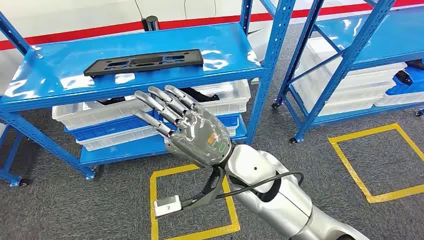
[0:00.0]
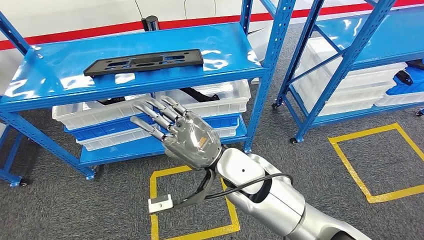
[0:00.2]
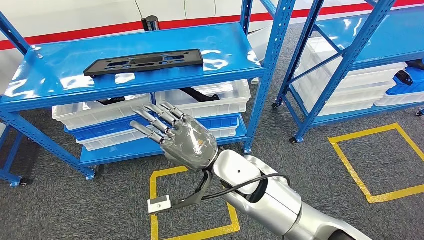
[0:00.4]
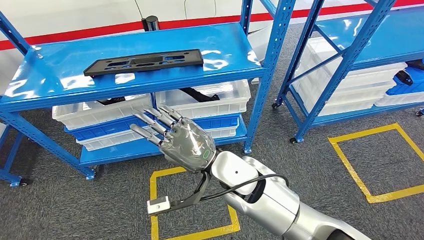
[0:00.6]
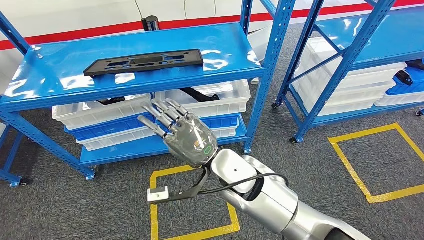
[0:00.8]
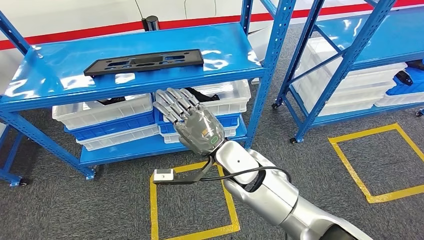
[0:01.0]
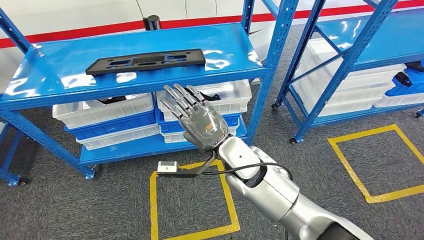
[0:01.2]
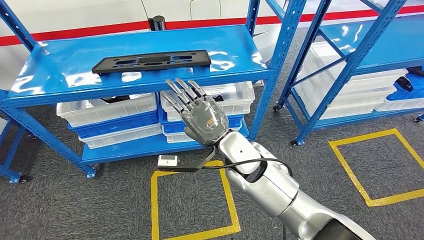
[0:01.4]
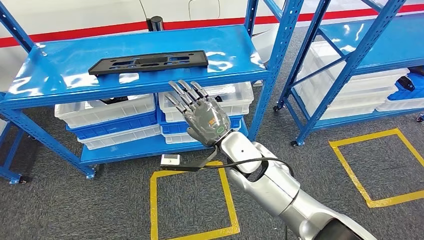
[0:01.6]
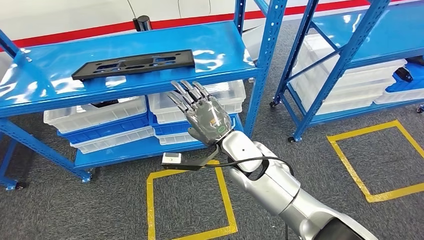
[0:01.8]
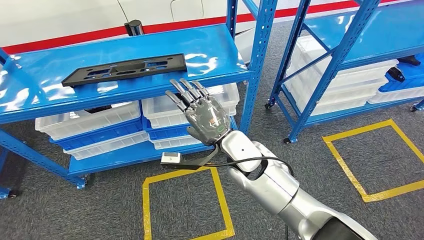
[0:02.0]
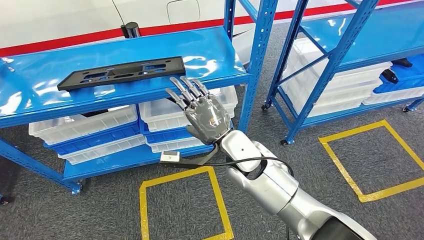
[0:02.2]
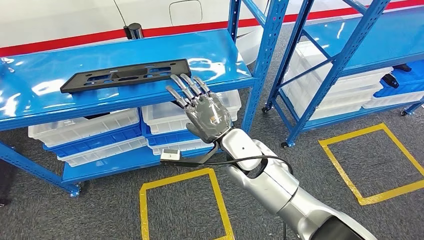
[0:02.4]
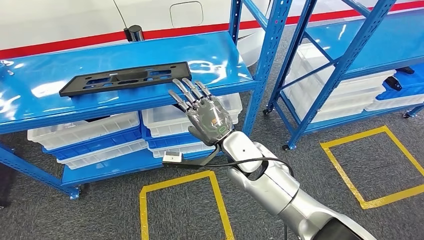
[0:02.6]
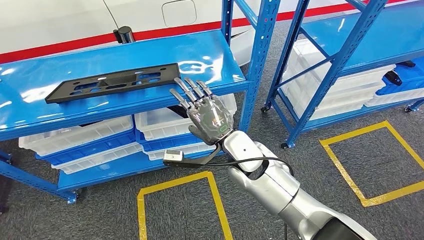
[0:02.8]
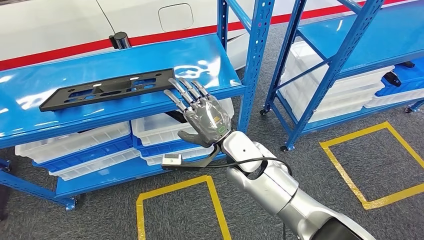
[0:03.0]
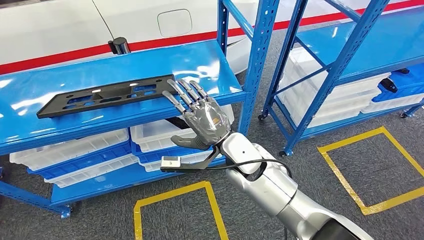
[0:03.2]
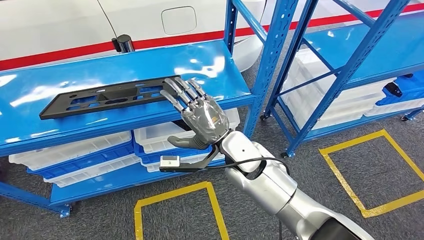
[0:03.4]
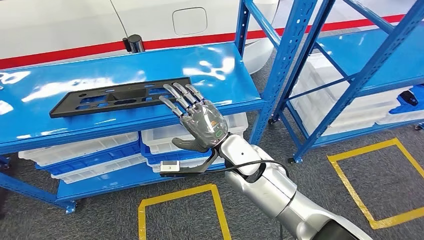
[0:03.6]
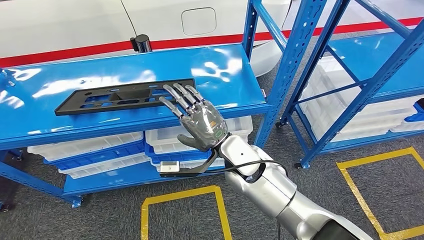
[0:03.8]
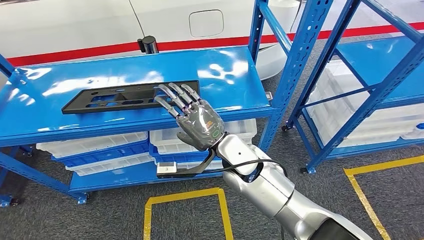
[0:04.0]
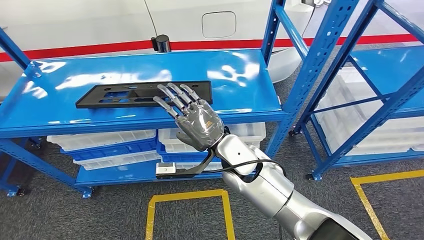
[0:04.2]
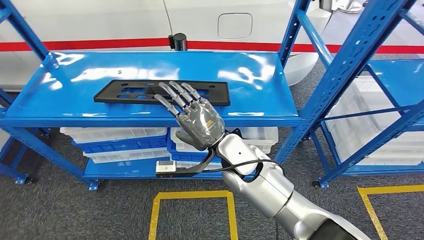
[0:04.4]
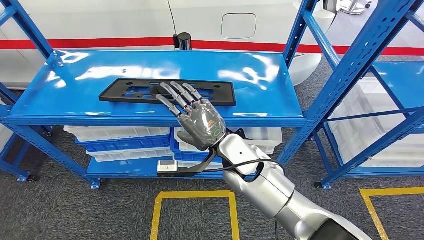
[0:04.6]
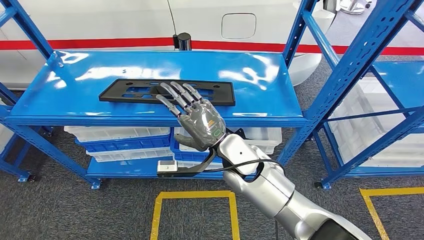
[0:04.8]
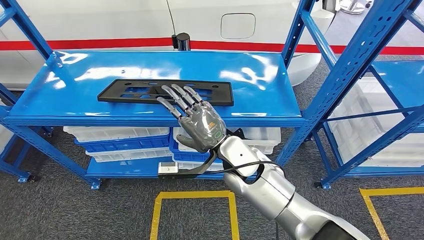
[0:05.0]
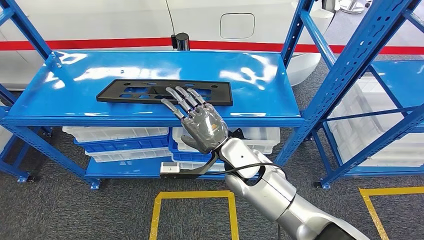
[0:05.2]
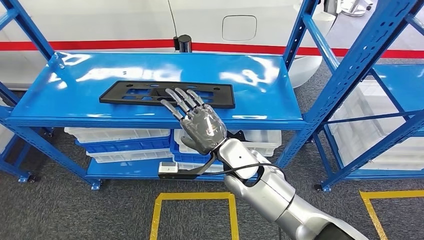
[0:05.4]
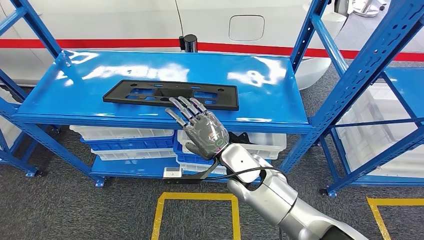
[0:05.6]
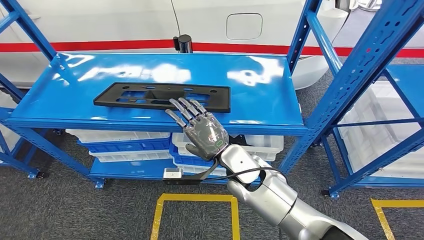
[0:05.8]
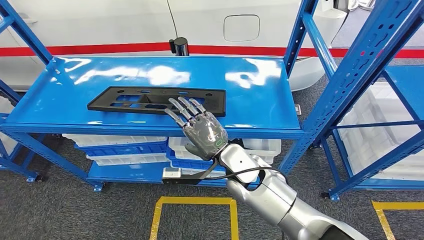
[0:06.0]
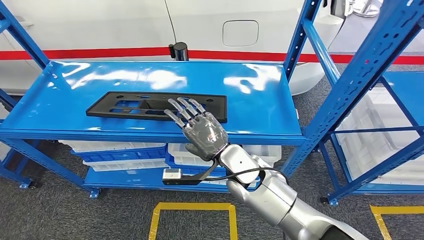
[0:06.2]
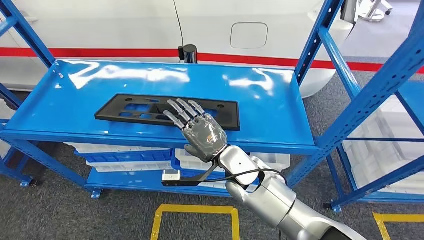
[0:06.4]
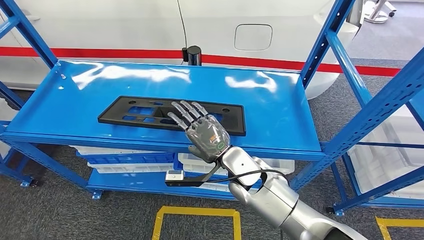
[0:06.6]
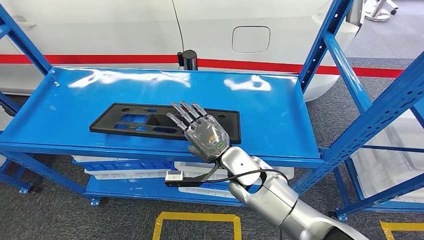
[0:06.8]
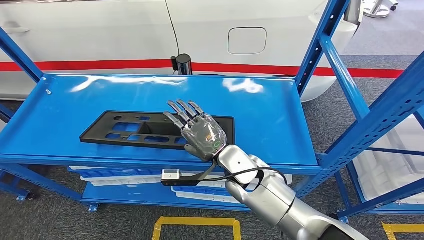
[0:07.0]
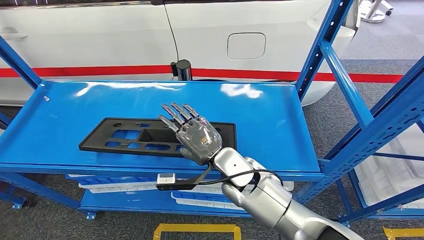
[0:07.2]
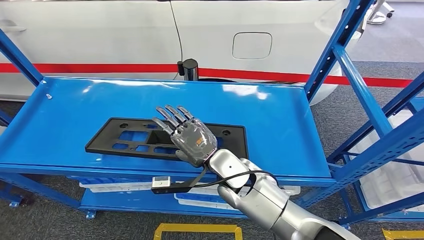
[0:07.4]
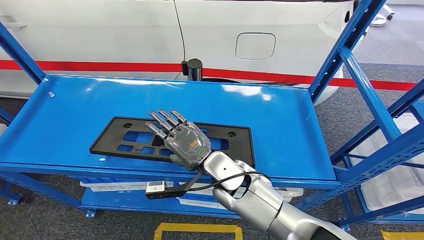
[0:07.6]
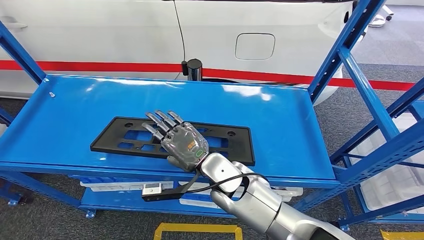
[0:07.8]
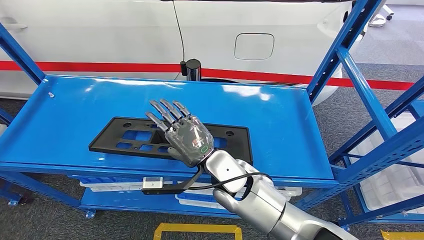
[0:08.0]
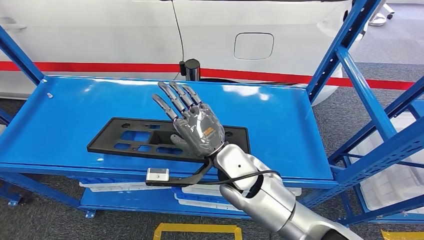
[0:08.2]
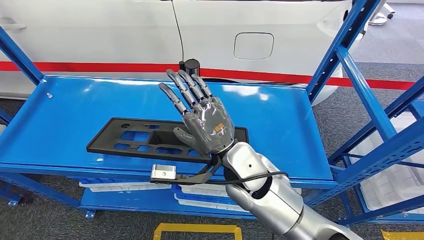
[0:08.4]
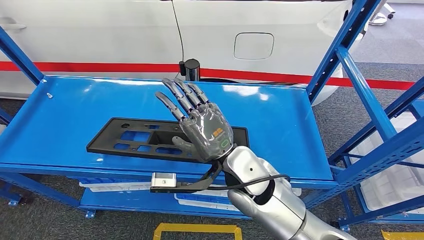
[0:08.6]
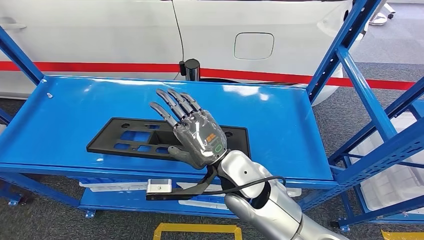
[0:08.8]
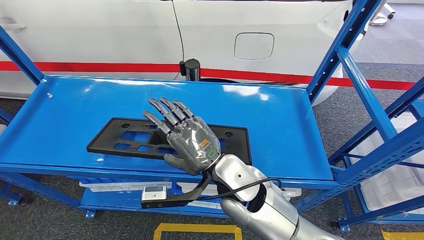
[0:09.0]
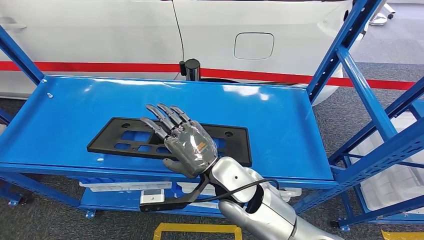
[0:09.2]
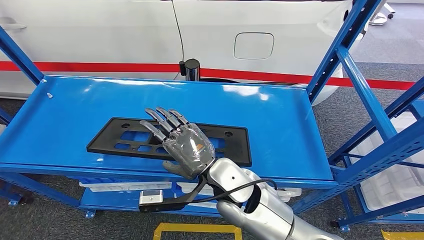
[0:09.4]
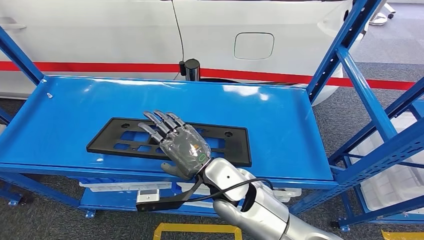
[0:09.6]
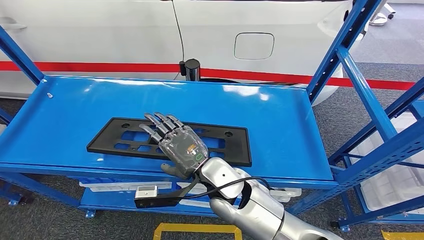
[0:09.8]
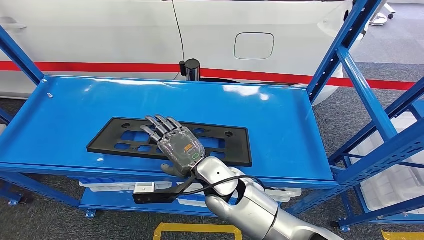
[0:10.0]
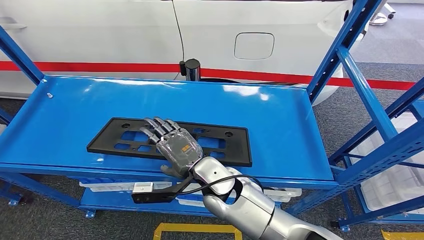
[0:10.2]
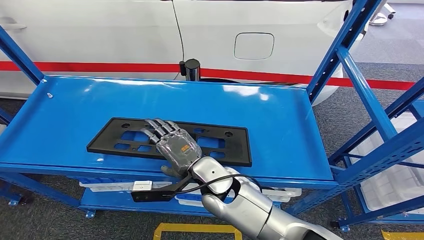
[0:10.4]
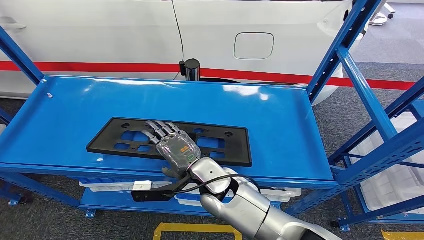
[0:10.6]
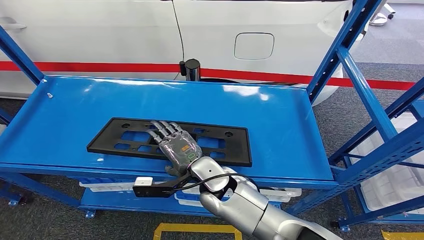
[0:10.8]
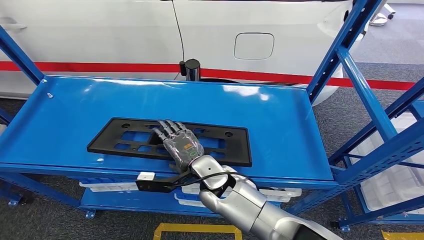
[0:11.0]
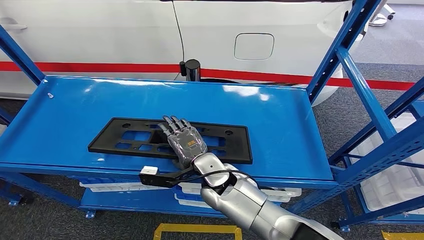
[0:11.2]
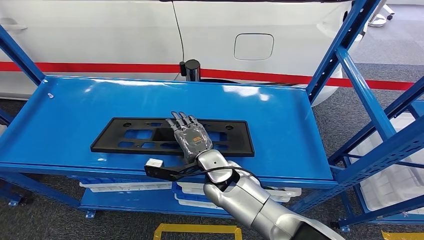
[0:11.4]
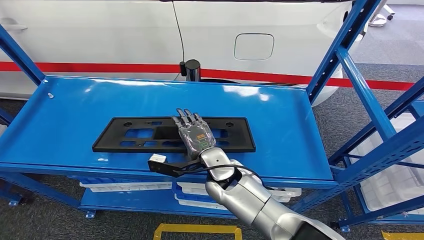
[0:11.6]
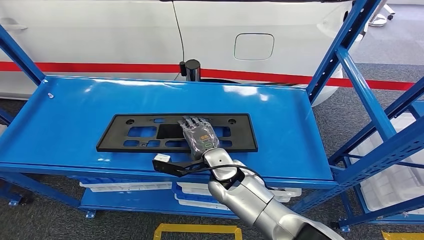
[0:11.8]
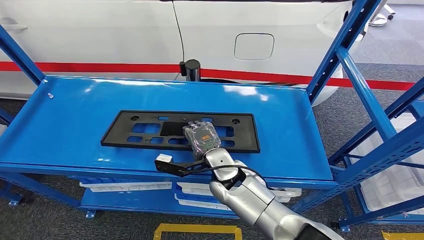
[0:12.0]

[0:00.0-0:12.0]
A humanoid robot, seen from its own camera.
0:07.6 to 0:09.0: The right hand travels upward by about 5 cm.
0:09.0 to 0:10.4: The right hand travels downward by some 5 cm.

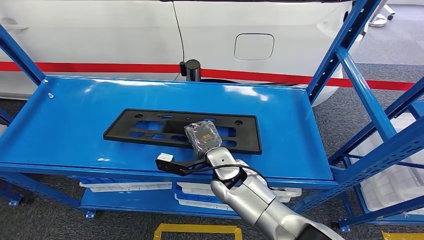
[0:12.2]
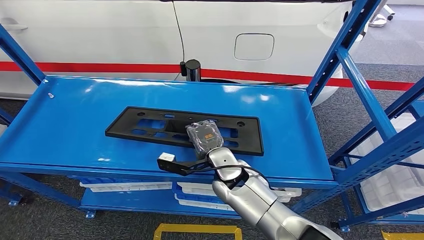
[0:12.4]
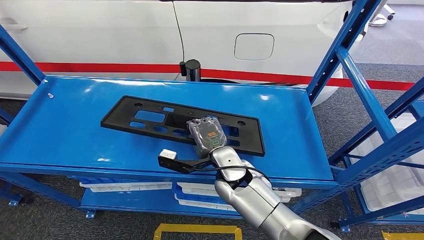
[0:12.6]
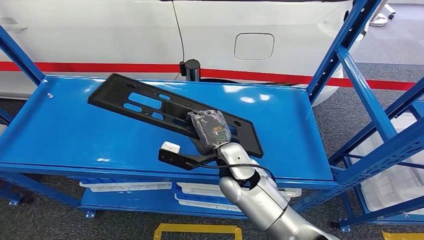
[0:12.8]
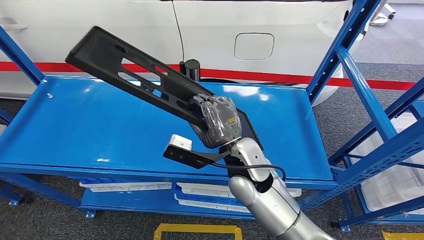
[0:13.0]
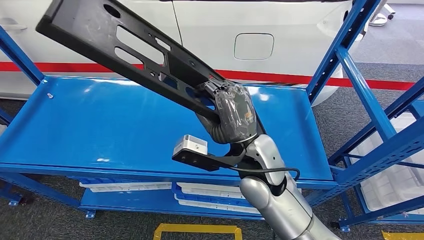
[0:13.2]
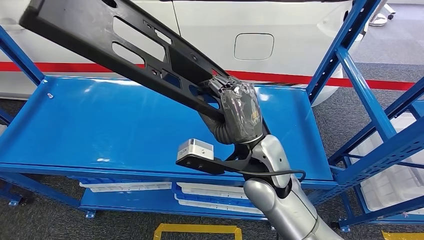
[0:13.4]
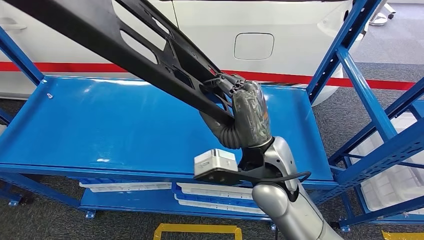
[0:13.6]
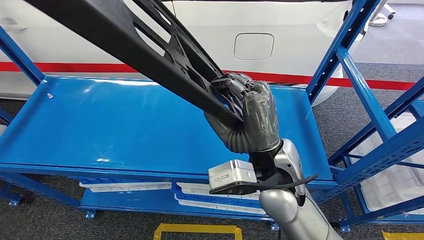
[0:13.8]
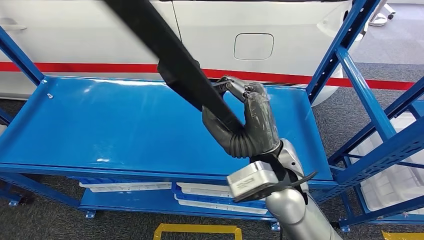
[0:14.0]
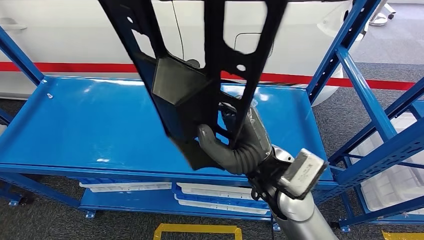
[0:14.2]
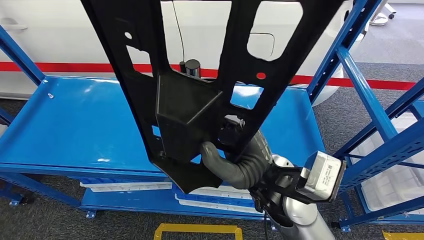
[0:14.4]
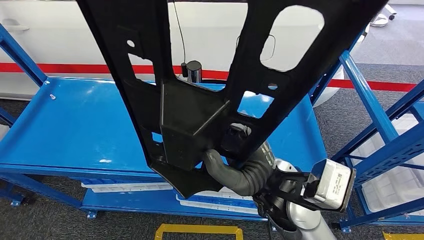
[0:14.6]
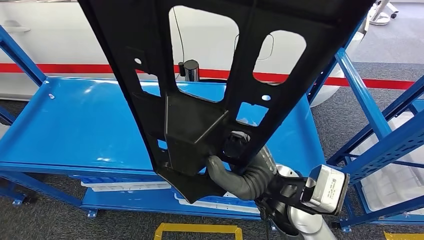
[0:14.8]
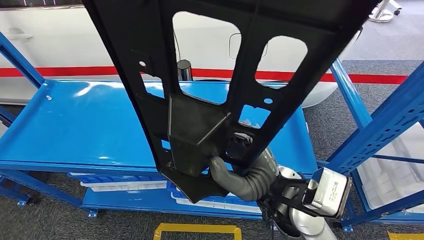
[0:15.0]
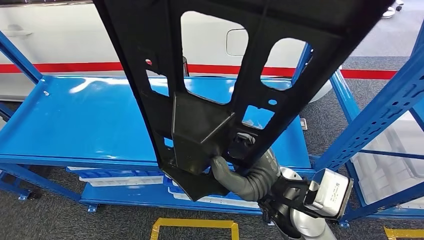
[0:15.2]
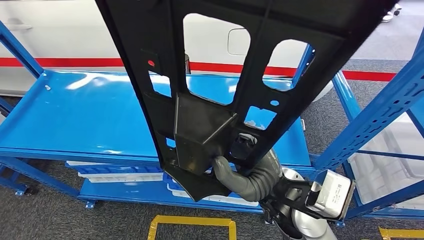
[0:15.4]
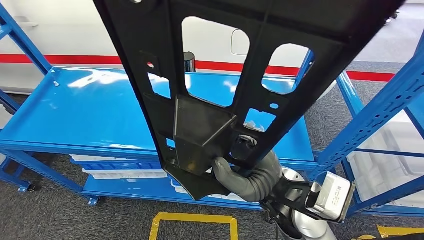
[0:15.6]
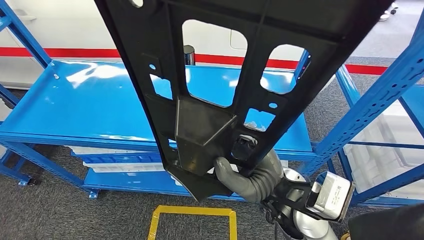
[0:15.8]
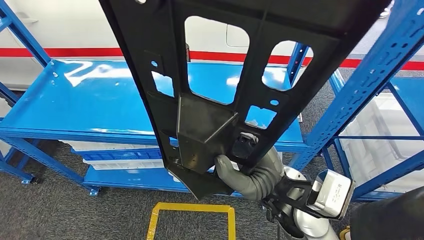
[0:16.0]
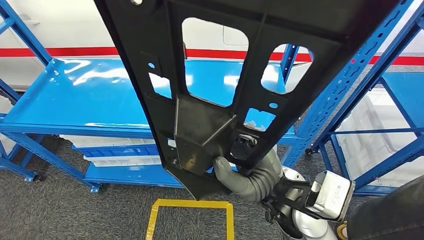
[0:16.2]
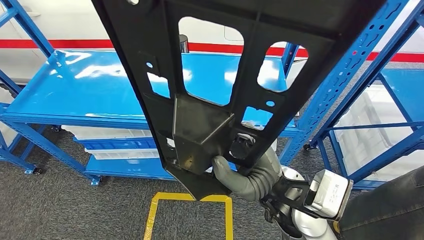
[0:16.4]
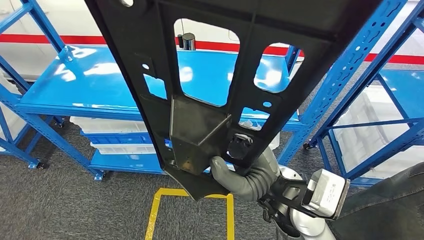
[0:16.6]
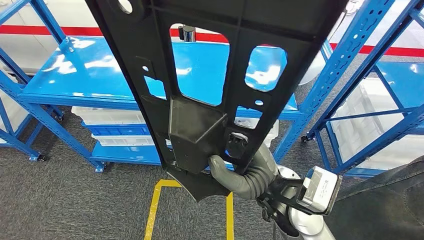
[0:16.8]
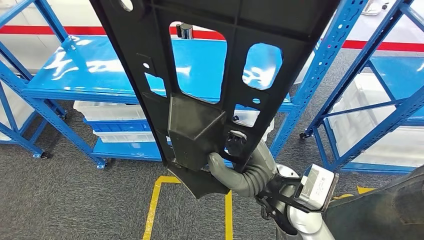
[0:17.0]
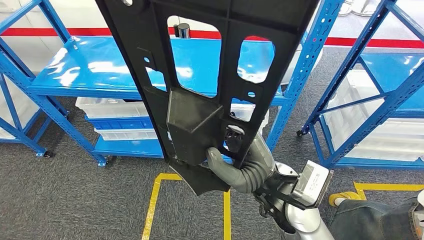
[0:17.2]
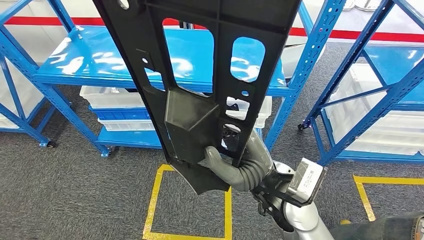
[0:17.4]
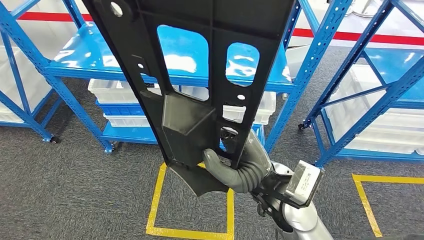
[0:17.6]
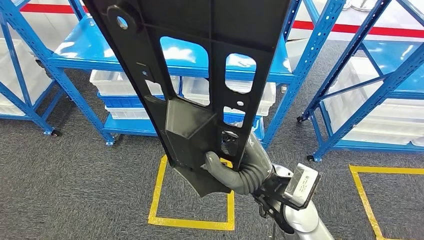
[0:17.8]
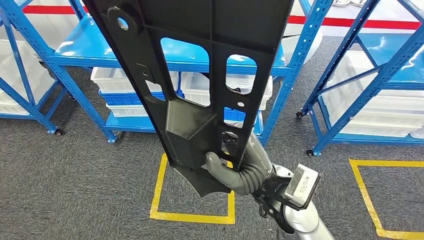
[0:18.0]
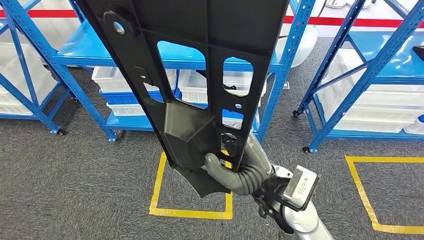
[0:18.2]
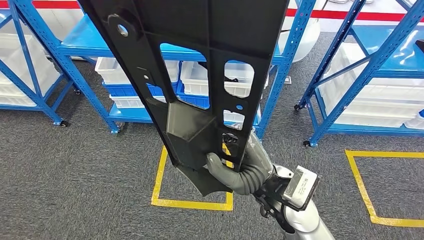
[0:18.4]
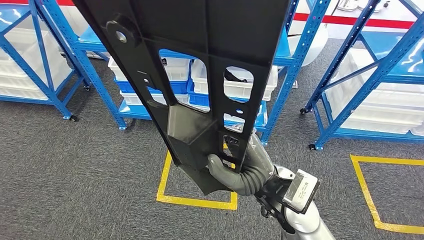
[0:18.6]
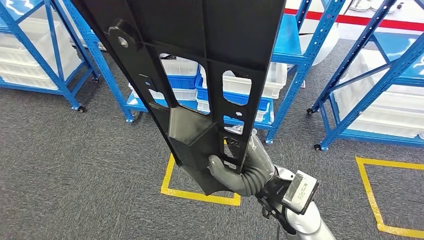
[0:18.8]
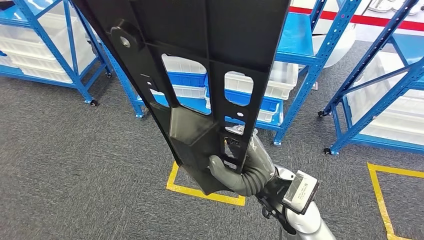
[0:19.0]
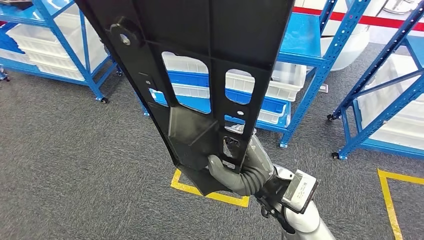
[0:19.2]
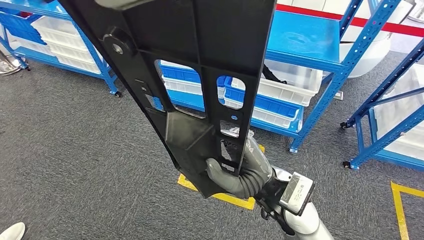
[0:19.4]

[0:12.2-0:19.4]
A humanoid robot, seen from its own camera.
Step, 0:12.2 to 0:17.0: Pick up the large material from the shelf.
